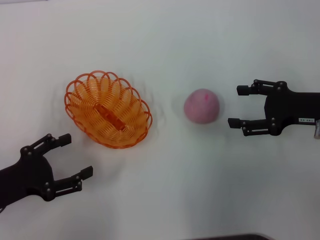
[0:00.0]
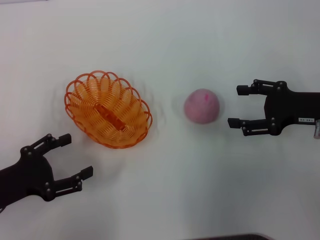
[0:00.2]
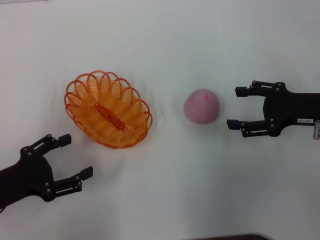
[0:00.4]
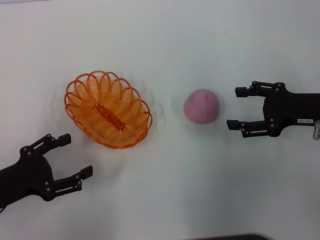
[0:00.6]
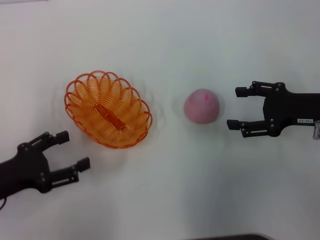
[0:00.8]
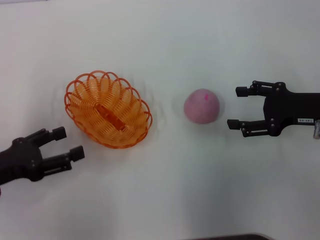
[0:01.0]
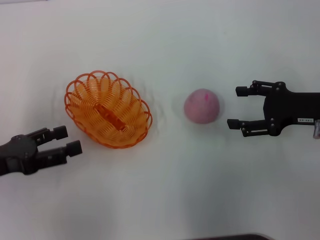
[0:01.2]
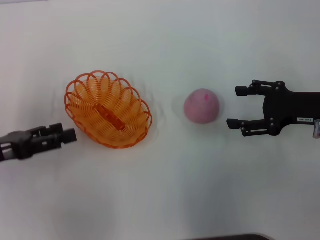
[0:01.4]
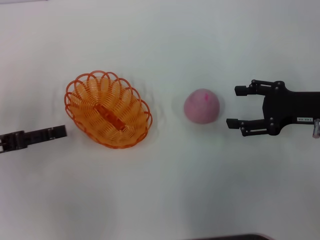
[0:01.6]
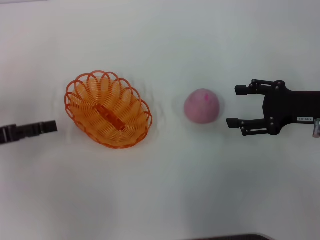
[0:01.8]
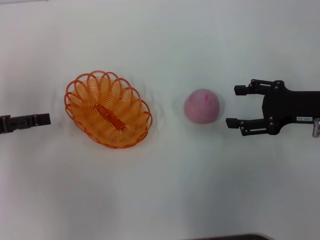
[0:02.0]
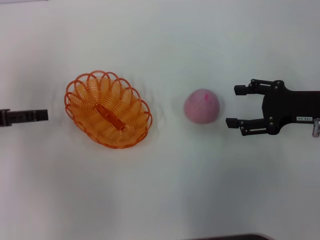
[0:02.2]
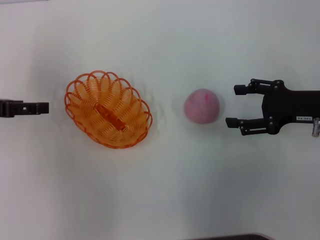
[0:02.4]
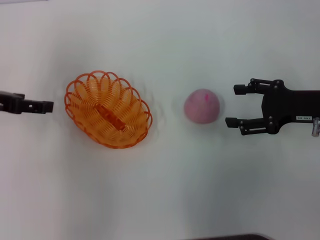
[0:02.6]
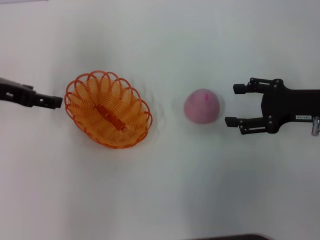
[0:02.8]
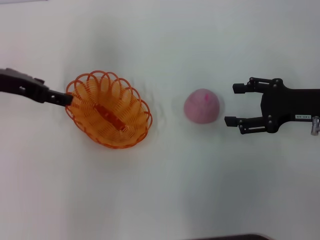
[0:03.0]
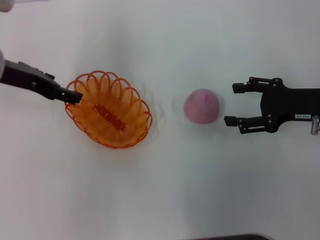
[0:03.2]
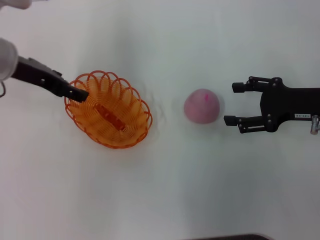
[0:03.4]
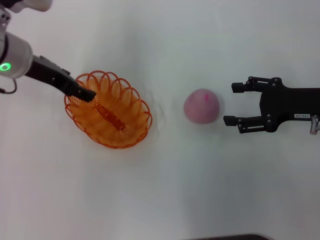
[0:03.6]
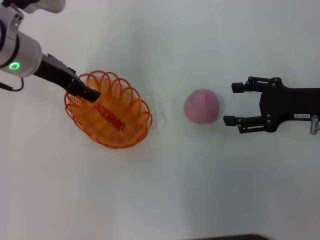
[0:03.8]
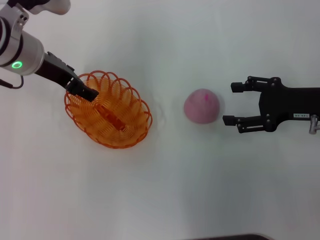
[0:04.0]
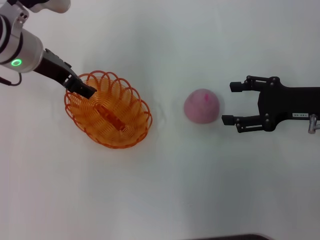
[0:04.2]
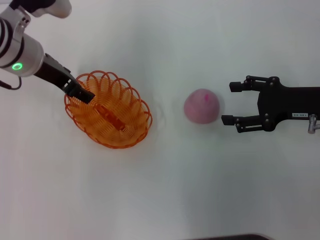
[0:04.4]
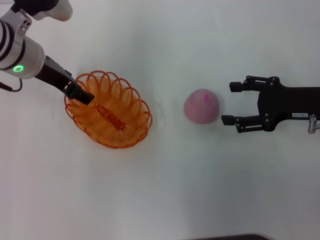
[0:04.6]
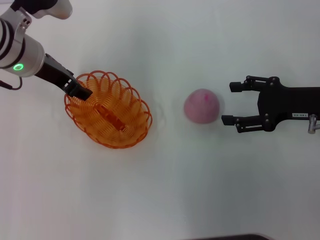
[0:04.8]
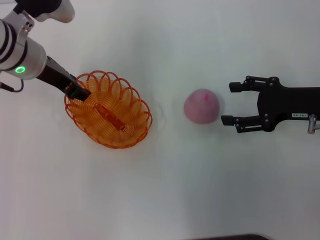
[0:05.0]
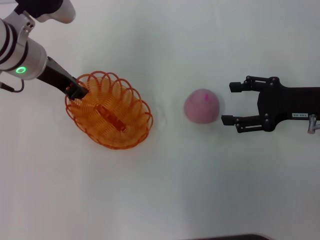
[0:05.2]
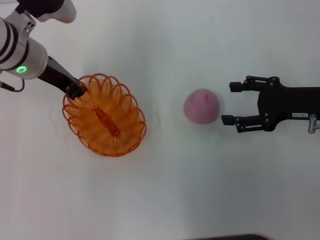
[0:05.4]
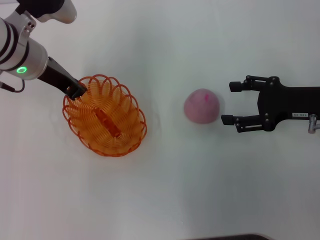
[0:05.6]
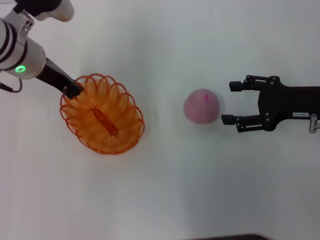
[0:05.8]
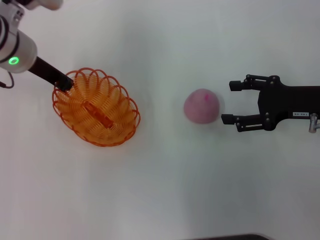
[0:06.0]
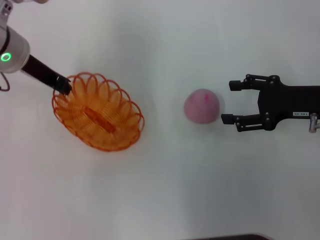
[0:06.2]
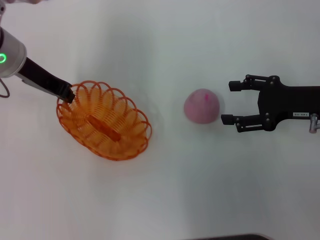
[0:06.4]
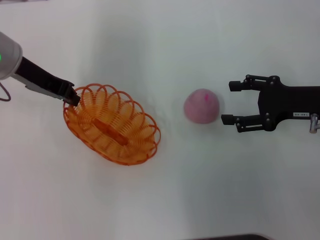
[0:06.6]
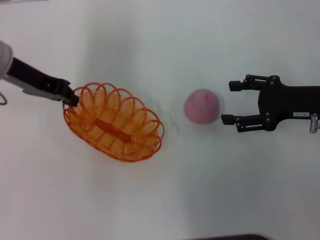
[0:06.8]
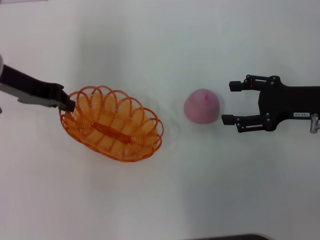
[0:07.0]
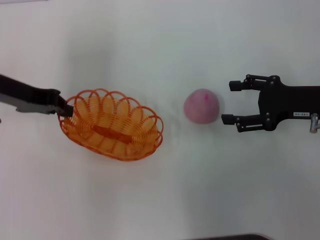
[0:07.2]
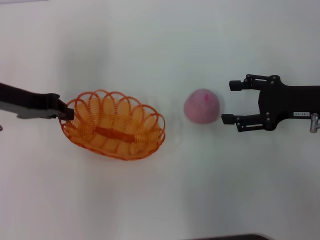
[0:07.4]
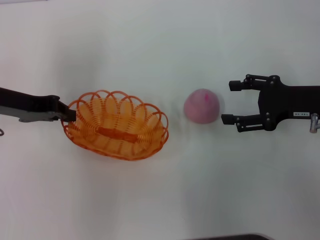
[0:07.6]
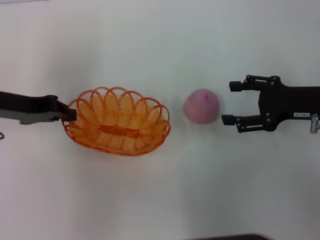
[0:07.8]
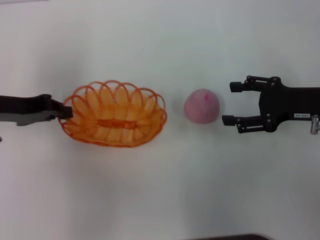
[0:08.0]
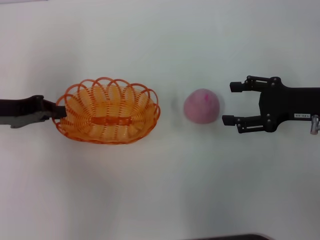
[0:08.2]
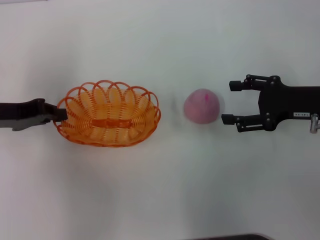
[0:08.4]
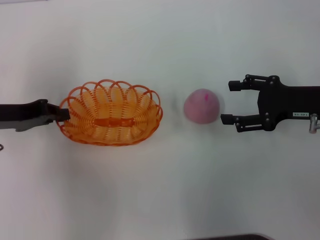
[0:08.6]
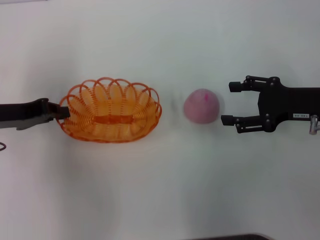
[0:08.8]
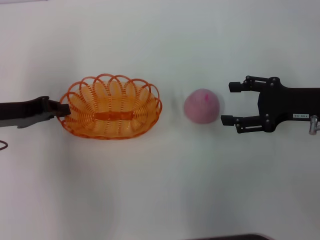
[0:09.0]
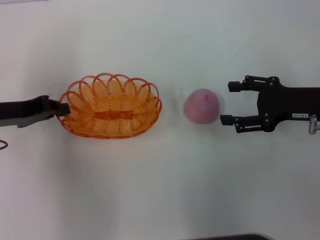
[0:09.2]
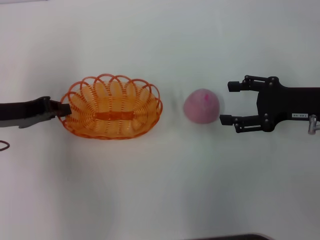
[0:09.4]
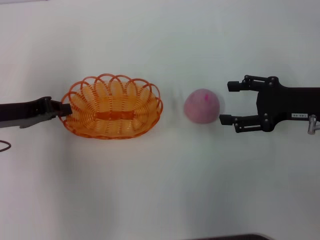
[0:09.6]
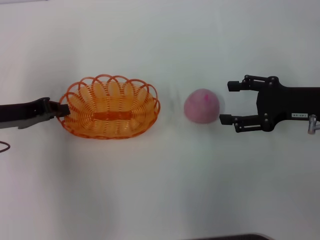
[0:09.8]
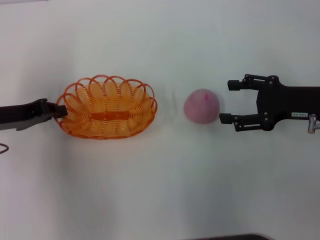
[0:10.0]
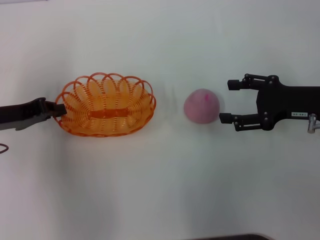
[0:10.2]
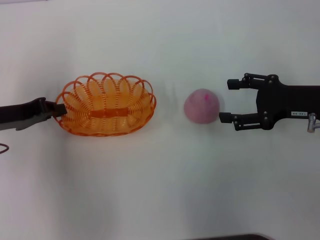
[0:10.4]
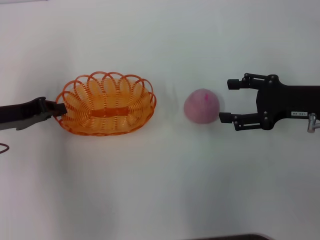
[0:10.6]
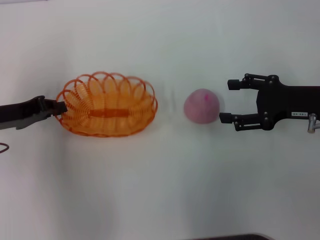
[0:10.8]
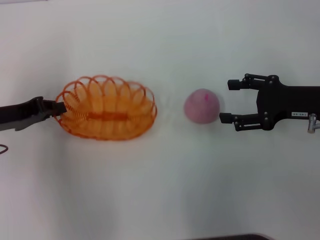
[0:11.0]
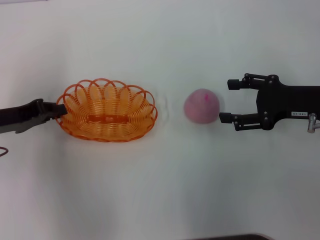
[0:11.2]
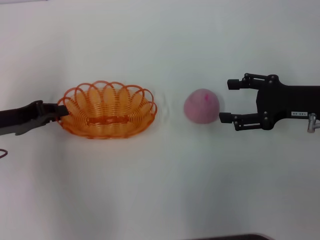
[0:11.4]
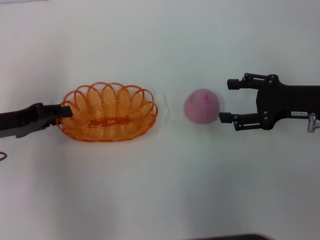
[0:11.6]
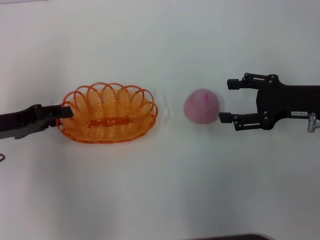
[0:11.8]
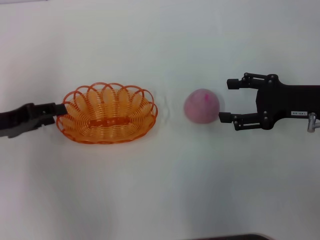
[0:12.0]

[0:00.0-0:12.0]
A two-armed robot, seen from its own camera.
Step, 0:00.0 to 0:06.2: Pick up the basket with the left gripper.
0:00.0 to 0:01.6: The left gripper heads forward, covering about 5 cm.
0:01.6 to 0:03.0: The left gripper moves forward, upward and to the right, roughly 15 cm.
0:03.0 to 0:04.4: The left gripper travels to the right by about 5 cm.
0:04.4 to 0:06.0: The left gripper closes its fingers.
0:06.0 to 0:07.6: The left gripper goes roughly 10 cm to the left and backward.
0:07.6 to 0:09.0: The grippers move only a little.
0:09.0 to 0:10.4: Both grippers stay about where they are.
0:10.4 to 0:12.0: The left gripper opens.

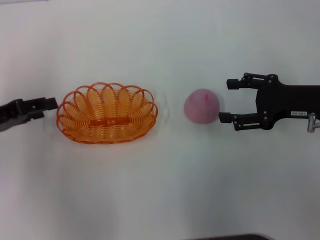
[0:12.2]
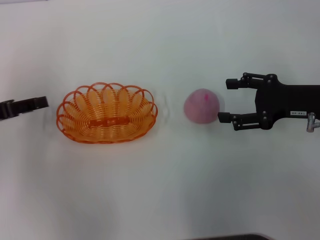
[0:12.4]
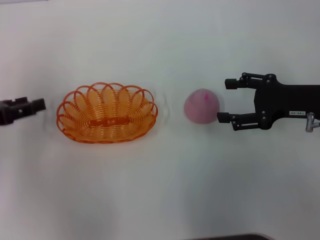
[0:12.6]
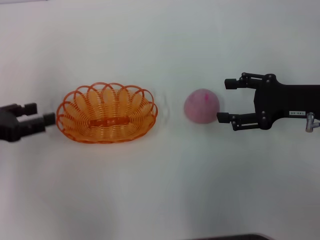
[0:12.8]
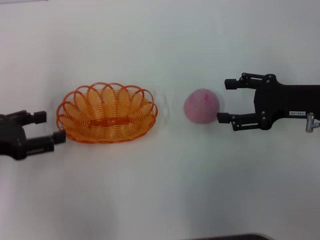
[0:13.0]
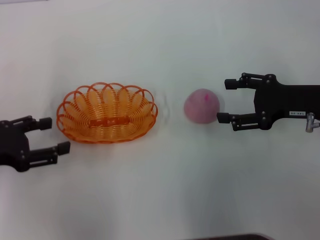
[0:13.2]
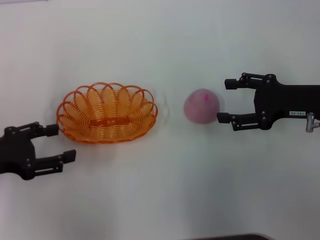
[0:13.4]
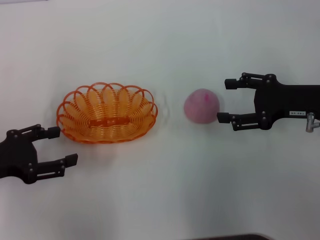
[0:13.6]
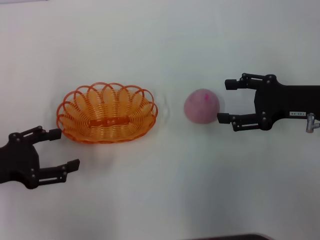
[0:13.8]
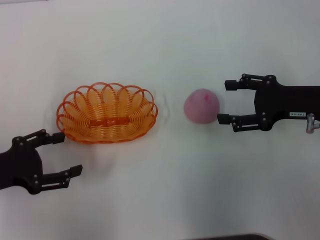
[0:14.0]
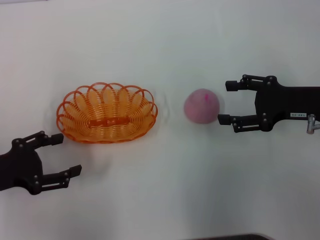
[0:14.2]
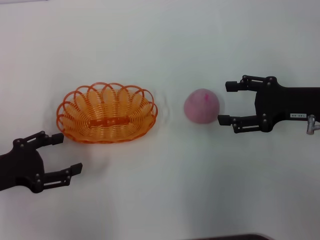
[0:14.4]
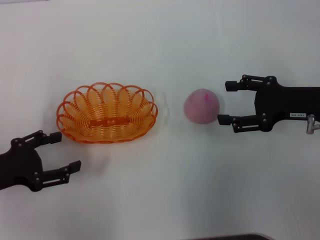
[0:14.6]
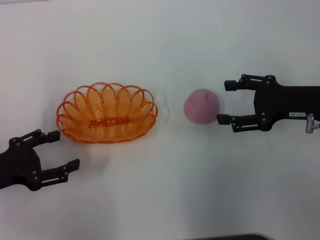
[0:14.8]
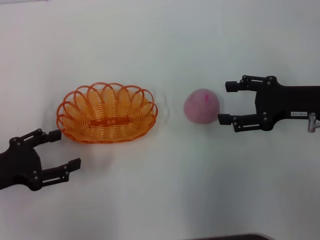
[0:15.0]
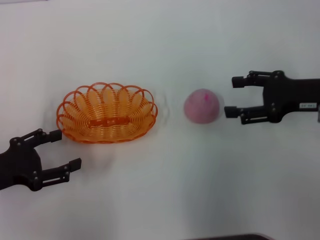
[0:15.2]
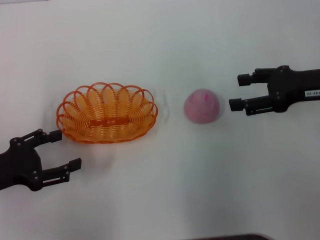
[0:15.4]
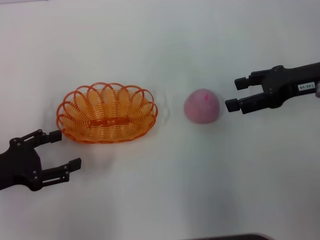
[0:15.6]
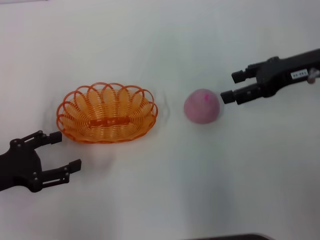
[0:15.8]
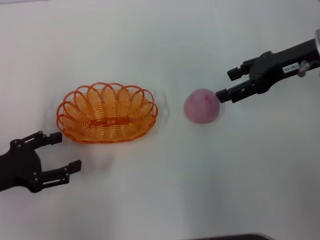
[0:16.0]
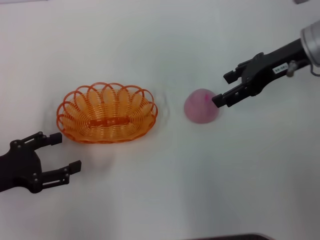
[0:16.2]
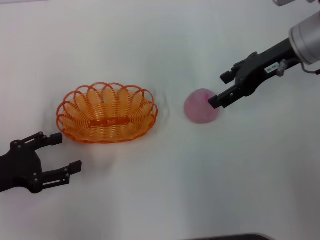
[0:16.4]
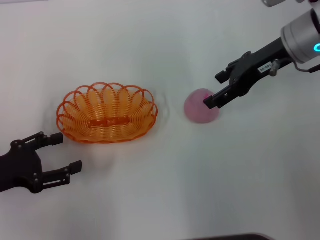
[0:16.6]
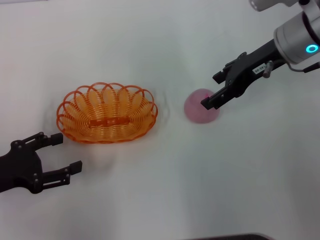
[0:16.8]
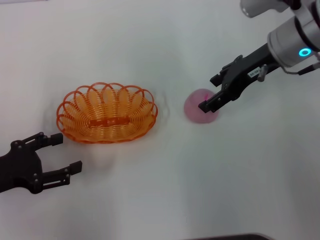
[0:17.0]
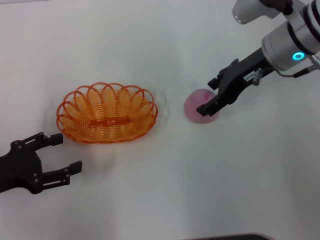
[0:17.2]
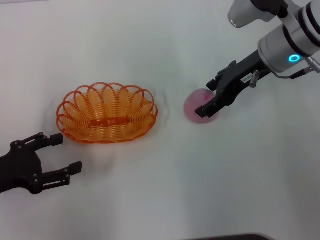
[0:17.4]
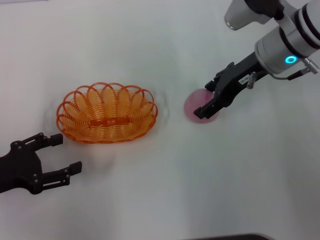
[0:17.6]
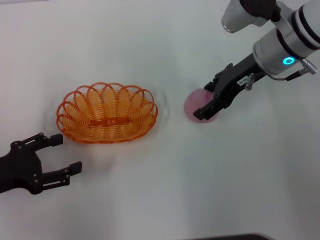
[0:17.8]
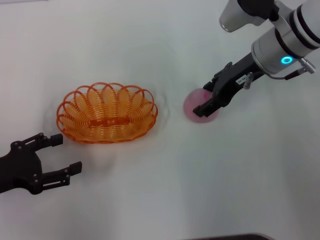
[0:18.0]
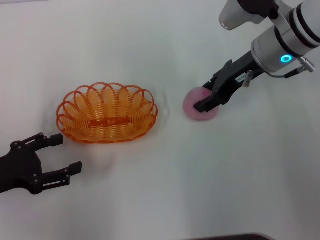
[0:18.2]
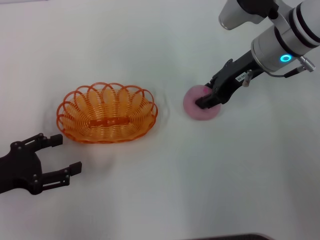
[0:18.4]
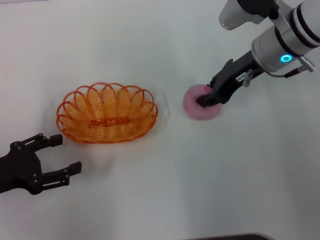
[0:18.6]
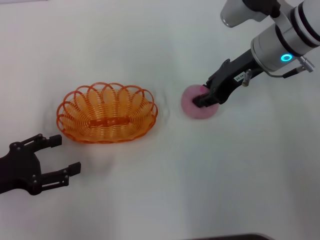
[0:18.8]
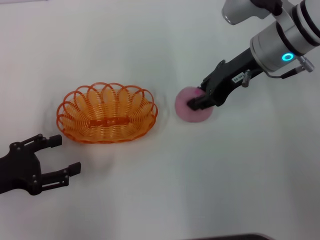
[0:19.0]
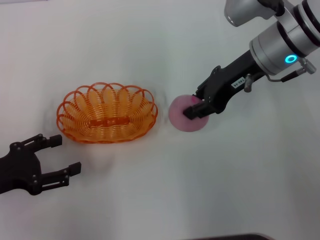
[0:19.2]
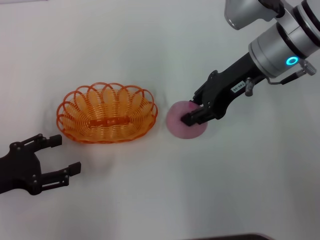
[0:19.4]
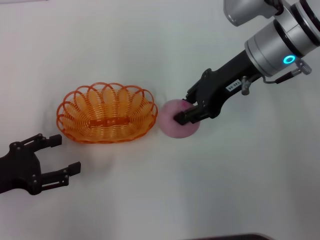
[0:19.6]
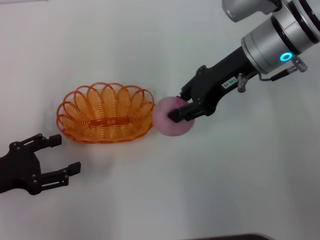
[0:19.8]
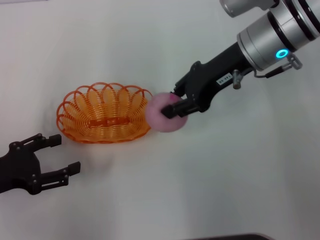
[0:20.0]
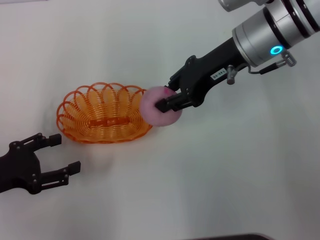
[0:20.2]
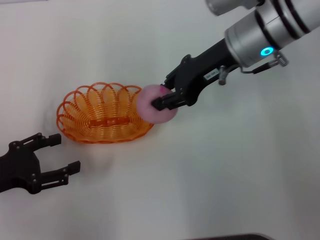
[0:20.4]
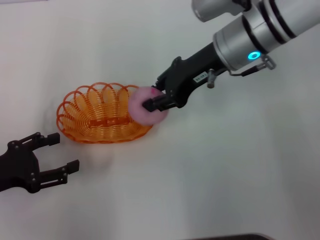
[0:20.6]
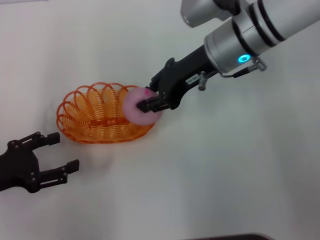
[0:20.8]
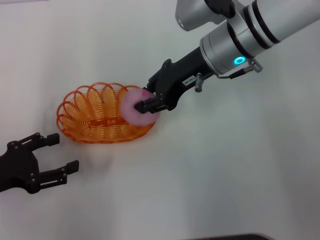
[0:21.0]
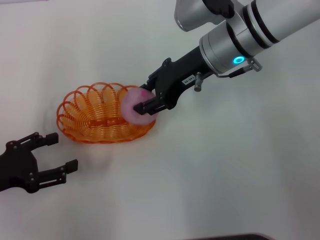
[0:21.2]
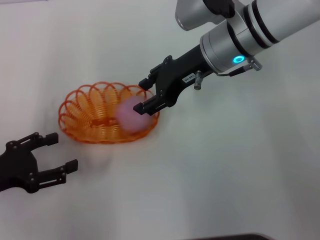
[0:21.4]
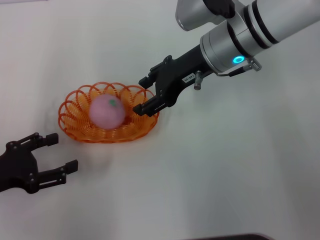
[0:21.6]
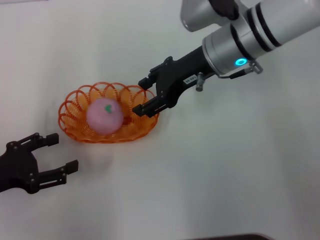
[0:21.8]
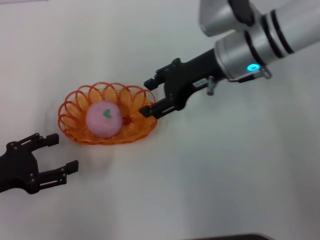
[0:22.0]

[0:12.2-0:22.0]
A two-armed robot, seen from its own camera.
Step, 0:12.6 to 0:17.8: Pick up the peach with the right gripper.
Step, 0:18.0 to 0:21.8: Place the peach into the basket with the right gripper.
0:12.2 to 0:13.6: The left gripper ends up about 5 cm from where it was.
0:13.6 to 0:15.0: The grippers make only small movements.
0:15.0 to 0:16.4: The right gripper goes about 15 cm forward, upward and to the left.
0:16.4 to 0:17.8: There are only small adjustments of the grippers.
0:17.8 to 0:19.2: The right gripper closes its fingers.
0:19.2 to 0:20.6: The grippers make only small movements.
0:20.6 to 0:22.0: The right gripper opens up.
